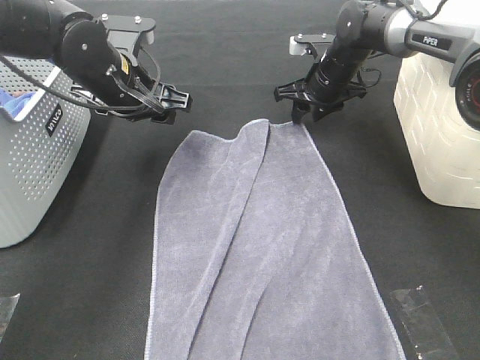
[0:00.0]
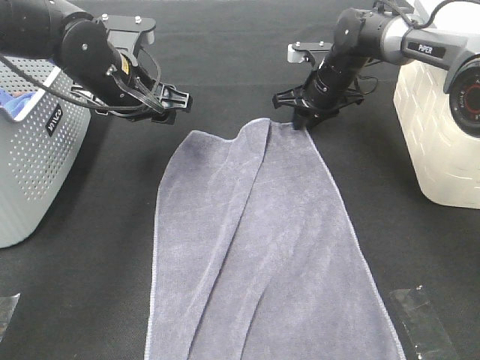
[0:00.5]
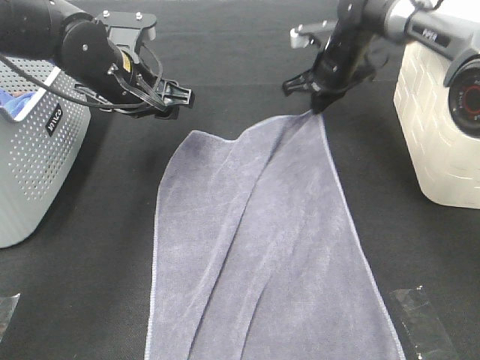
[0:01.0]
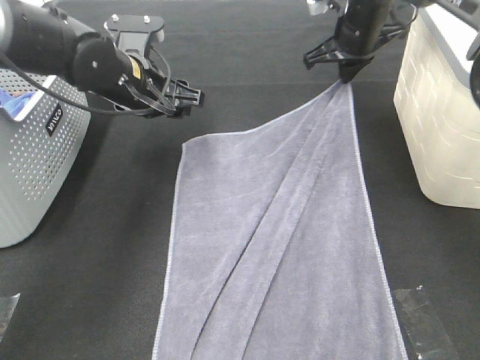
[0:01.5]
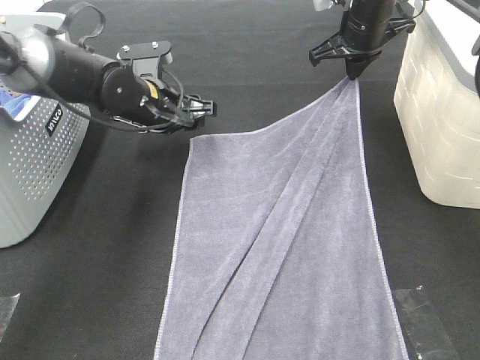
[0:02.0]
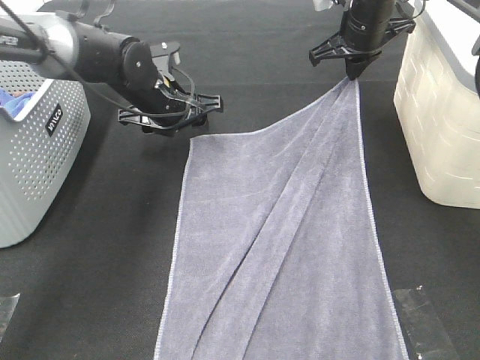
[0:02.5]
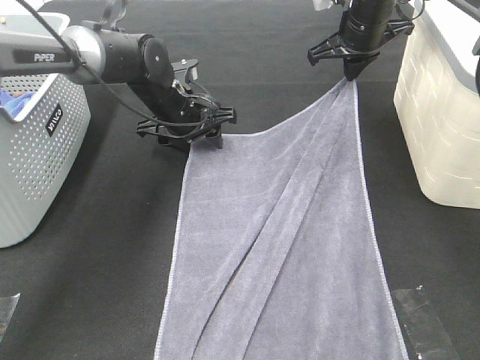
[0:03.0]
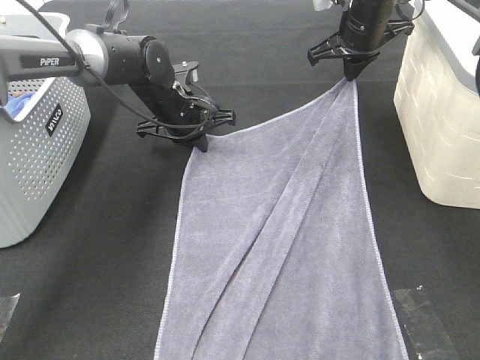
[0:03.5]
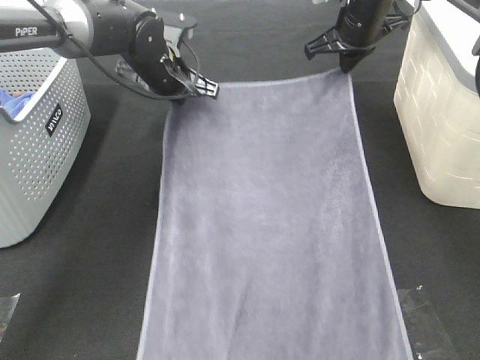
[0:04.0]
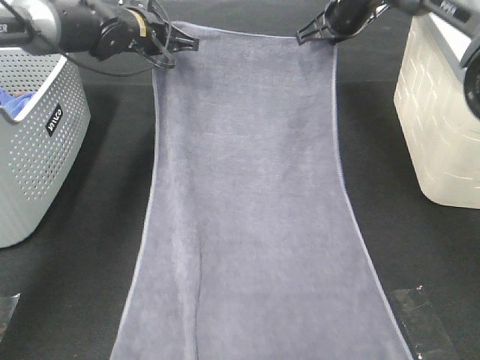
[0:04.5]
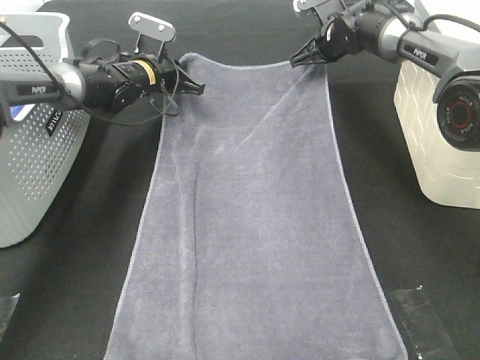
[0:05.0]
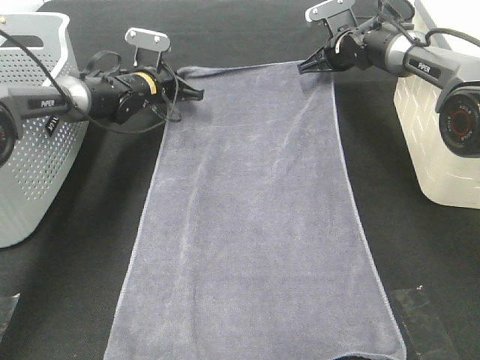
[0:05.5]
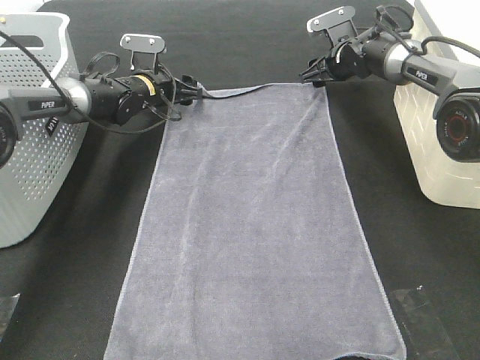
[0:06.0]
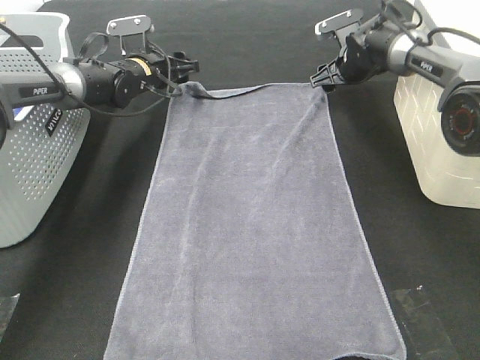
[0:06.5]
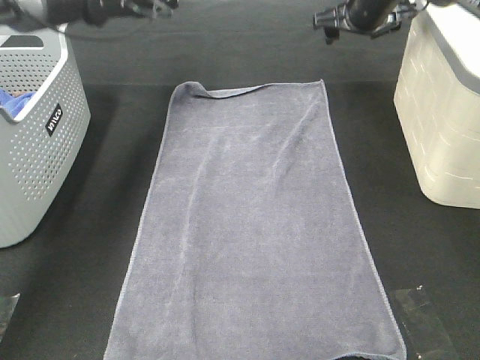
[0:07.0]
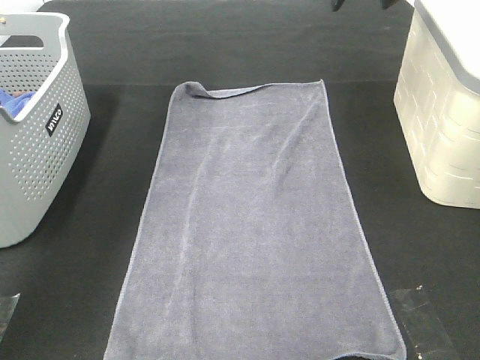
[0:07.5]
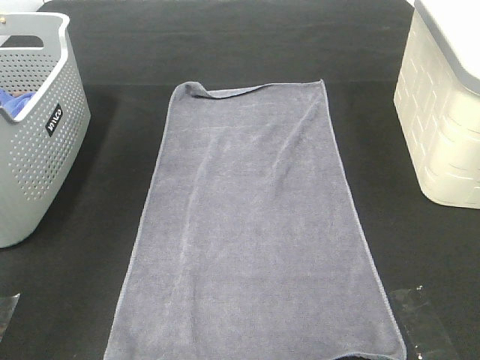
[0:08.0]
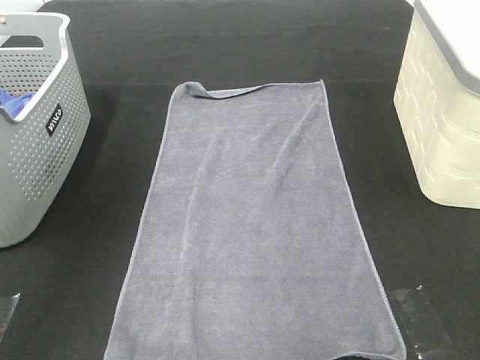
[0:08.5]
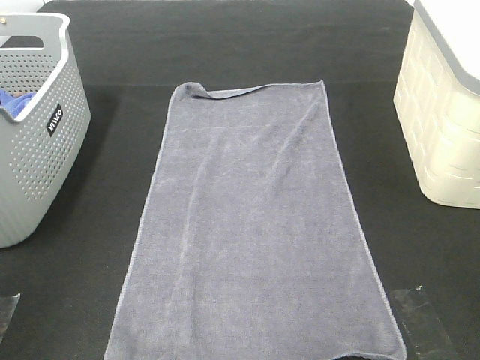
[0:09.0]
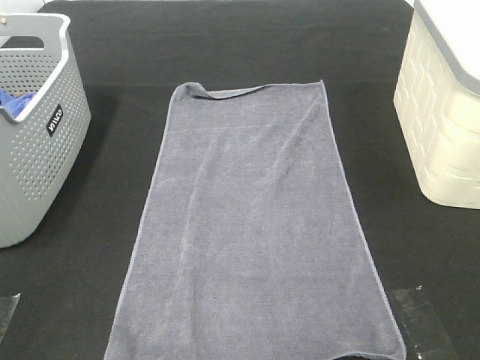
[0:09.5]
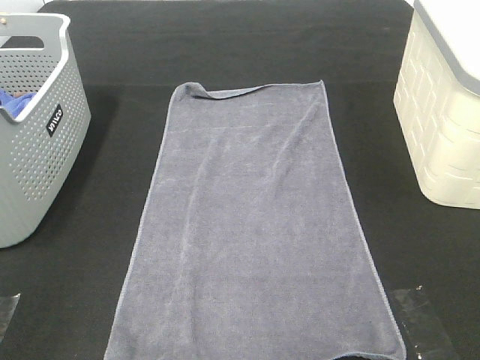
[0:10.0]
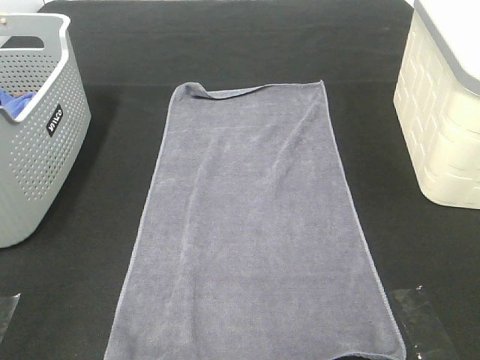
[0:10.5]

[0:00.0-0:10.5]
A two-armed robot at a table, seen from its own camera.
Task of the whole recording: Remove the towel and place it.
0:00.0 to 0:02.0: The left gripper is displaced downward by roughly 5 cm, while the right gripper moves upward, some 10 cm, and closes its fingers.
0:02.0 to 0:04.0: The left gripper goes roughly 5 cm forward, and closes up.
0:04.0 to 0:06.5: The right gripper moves downward and forward, some 10 cm, and opens its fingers, while the left gripper shifts roughly 10 cm forward, downward and to the left, and opens its fingers.
0:06.5 to 0:08.5: The grippers both shift upward and backward by about 40 cm.
0:08.5 to 0:10.5: The left gripper travels backward and downward by some 30 cm.

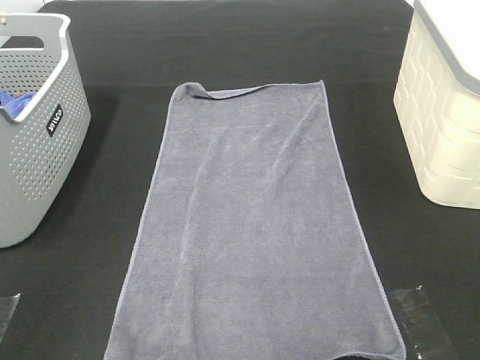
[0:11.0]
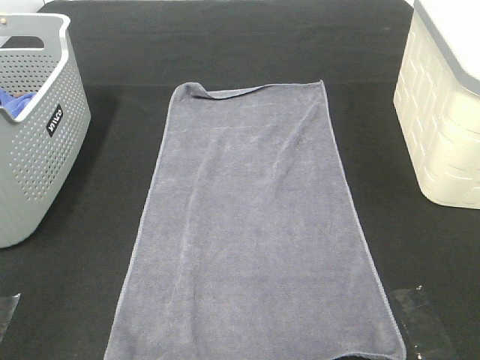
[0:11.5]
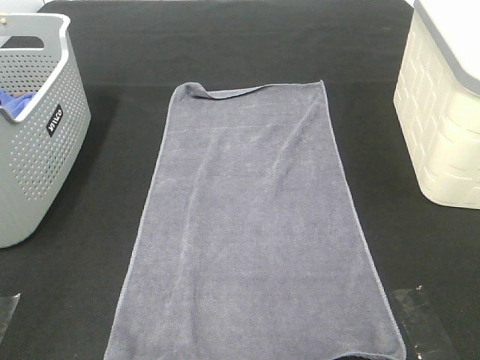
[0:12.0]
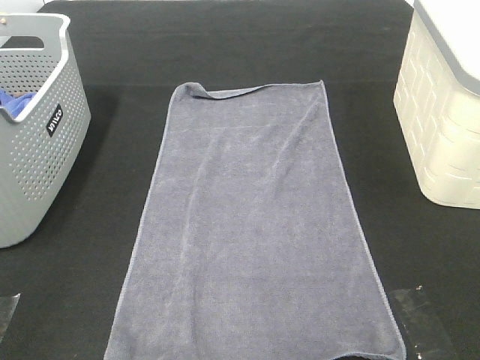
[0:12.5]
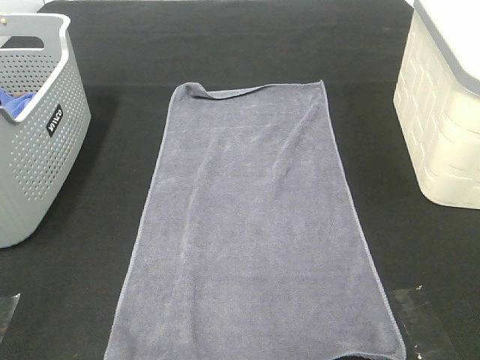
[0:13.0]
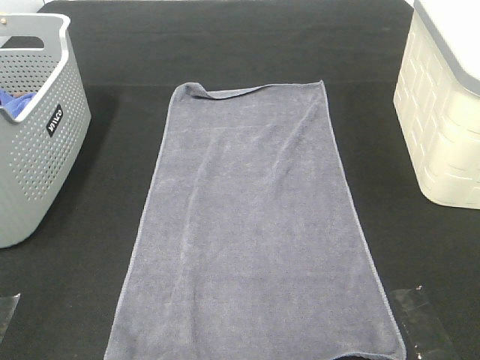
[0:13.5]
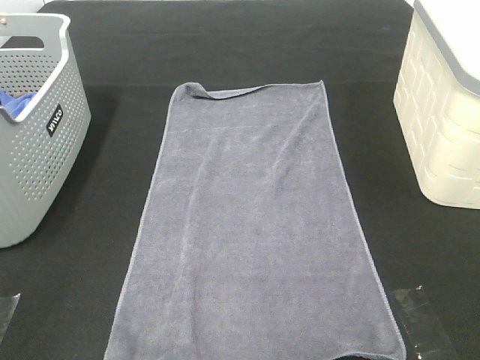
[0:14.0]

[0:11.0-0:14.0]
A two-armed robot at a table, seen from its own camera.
Task of the whole recording: Remove the towel and place it.
0:12.5 to 0:14.0: Both grippers stay about where they are.

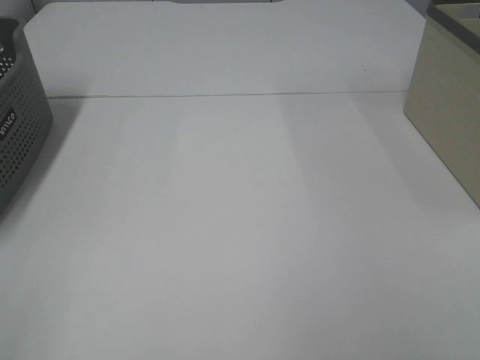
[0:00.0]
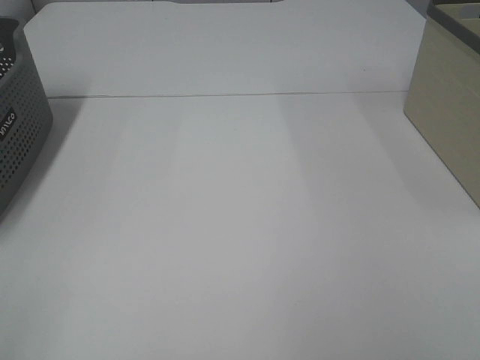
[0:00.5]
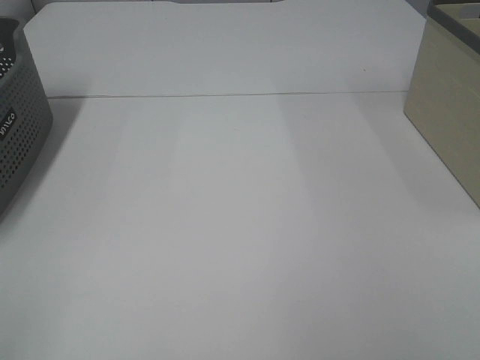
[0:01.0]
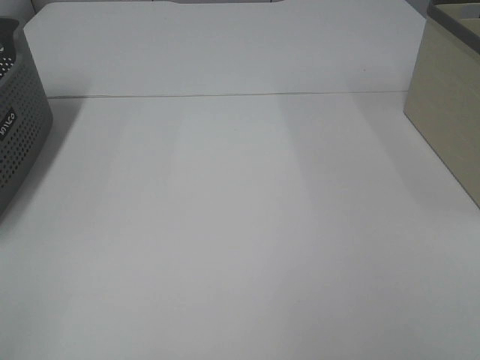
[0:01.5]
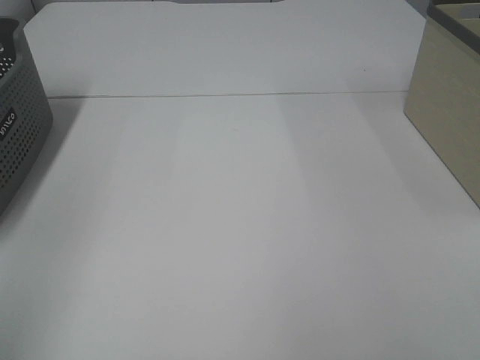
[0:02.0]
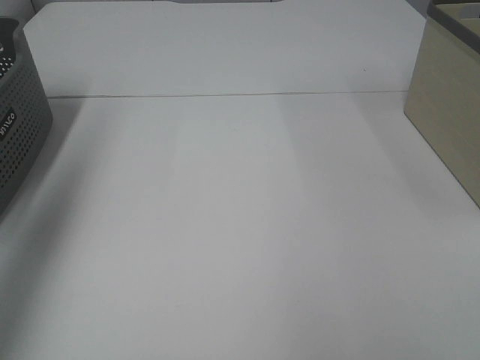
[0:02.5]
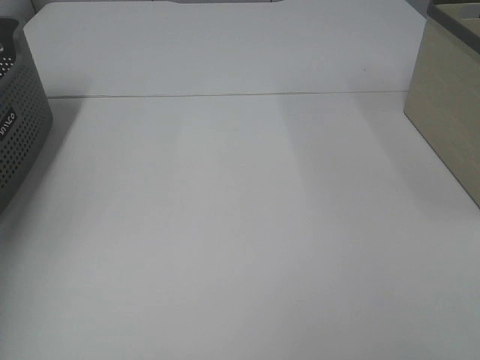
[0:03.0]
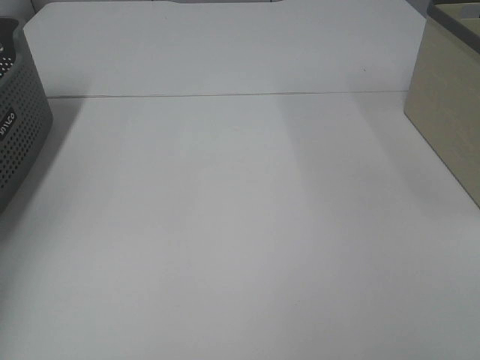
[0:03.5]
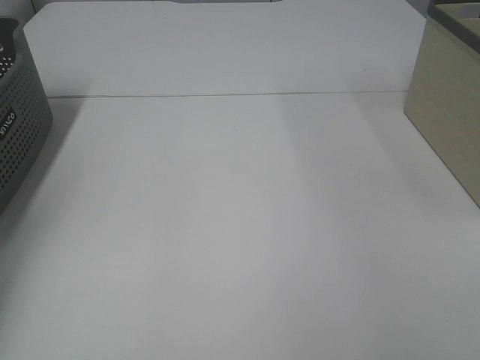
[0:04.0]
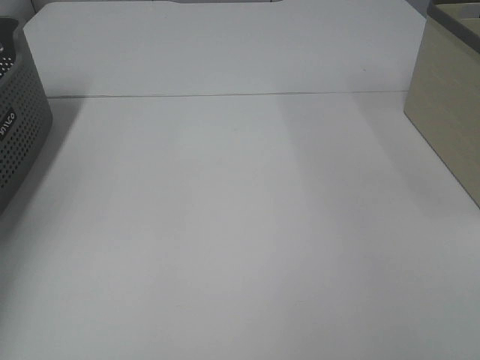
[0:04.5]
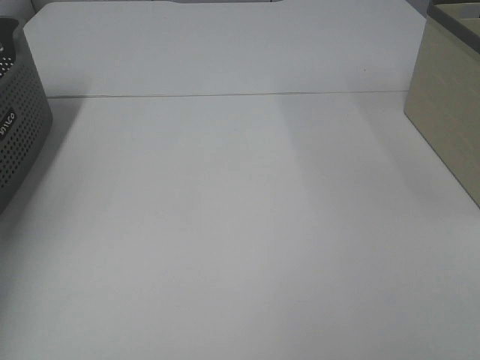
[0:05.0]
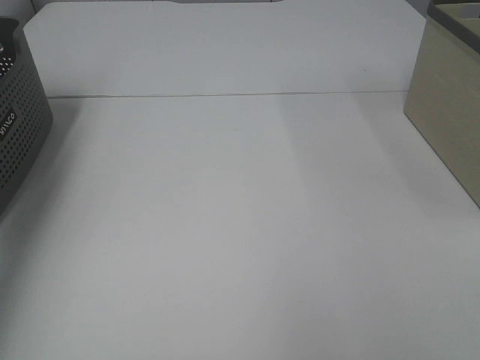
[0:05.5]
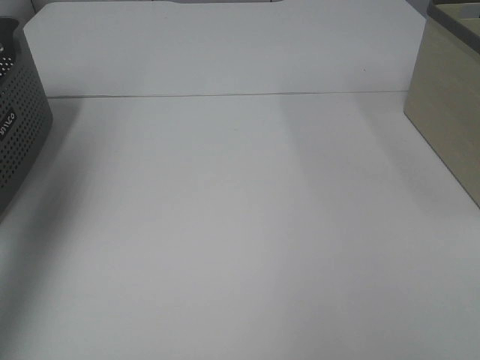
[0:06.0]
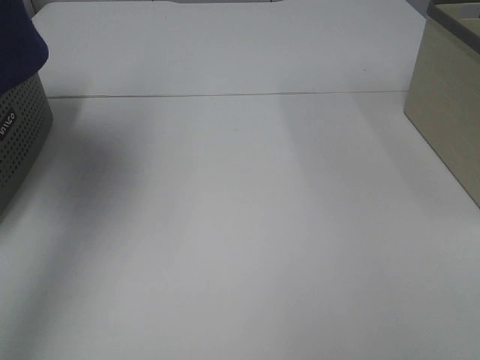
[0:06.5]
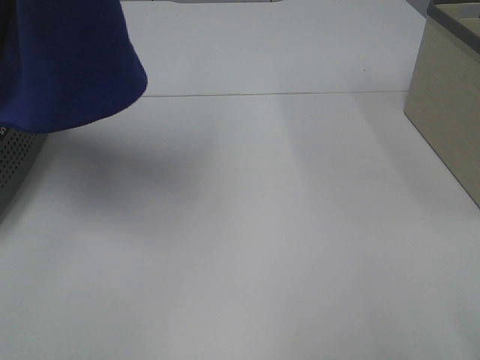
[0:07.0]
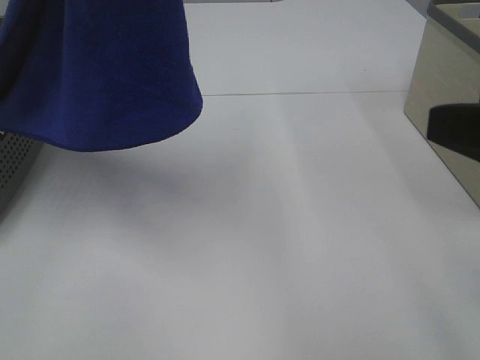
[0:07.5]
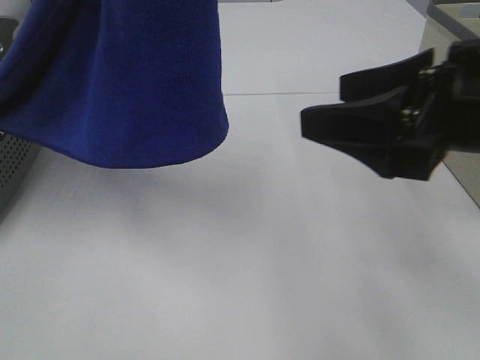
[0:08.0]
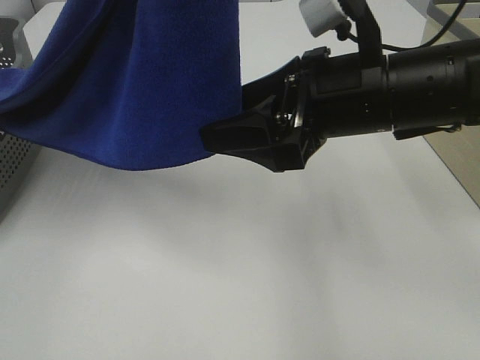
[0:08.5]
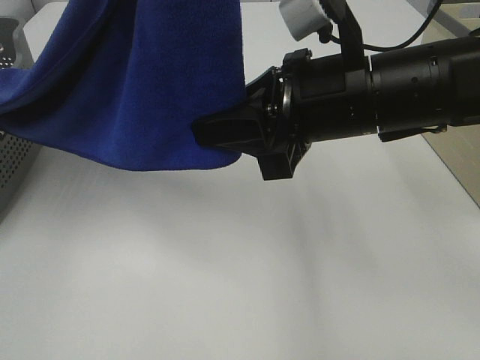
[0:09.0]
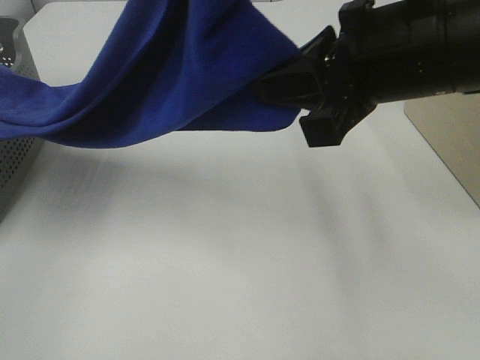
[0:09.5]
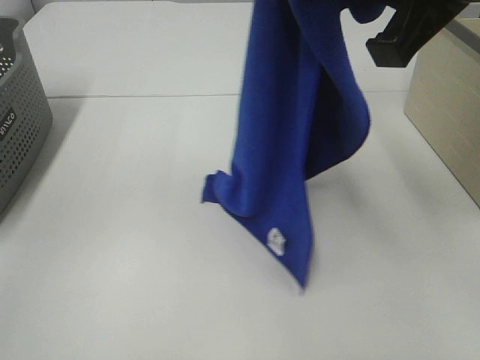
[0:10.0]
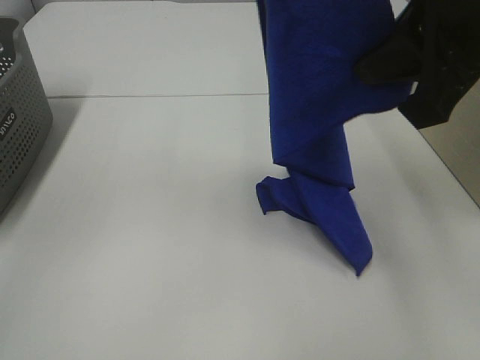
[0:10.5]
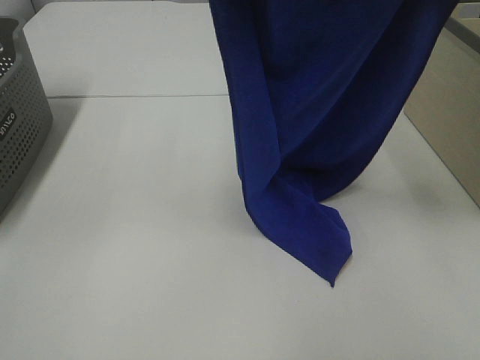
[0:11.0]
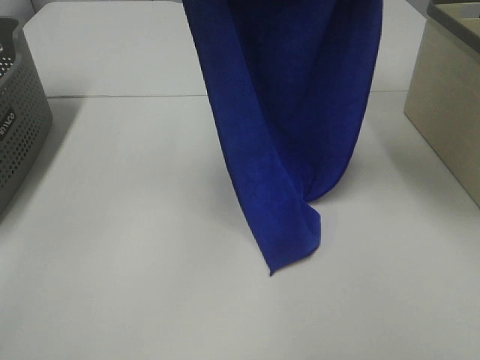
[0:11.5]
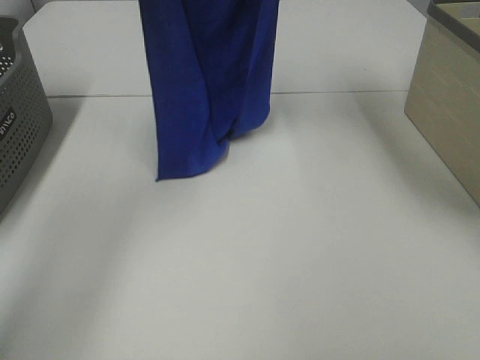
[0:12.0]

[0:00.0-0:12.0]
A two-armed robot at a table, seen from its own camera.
Task of the whole recording: Remove the towel and place it.
Step, 0:06.5 to 0:10.0: Right hand: grab a corner of the blue towel and straighten it.
0:02.0 to 0:04.0: The left gripper shifts about 40 cm forward and downward.
0:04.0 to 0:06.0: The left gripper shifts about 30 cm upward, and closes up.
0:06.0 to 0:08.0: The right gripper shifts about 20 cm forward and to the left; the left gripper shifts some 25 cm to the right and backward.
0:08.0 to 0:10.0: The right gripper goes about 10 cm upward, and closes its fingers; the left gripper moves forward and to the right, some 10 cm.
0:10.0 to 0:12.0: The right gripper is displaced forward by approximately 20 cm. The left gripper shifts roughly 20 cm forward and to the left.
